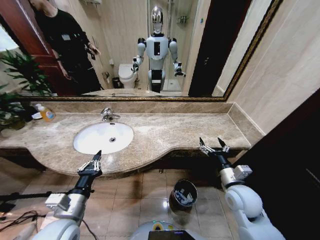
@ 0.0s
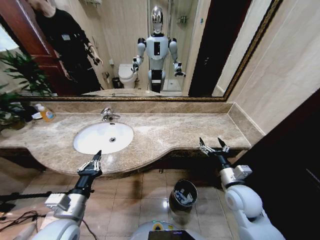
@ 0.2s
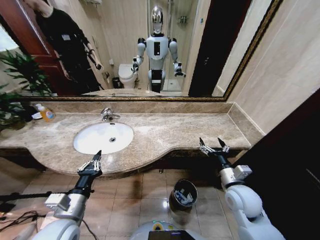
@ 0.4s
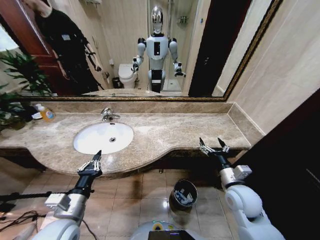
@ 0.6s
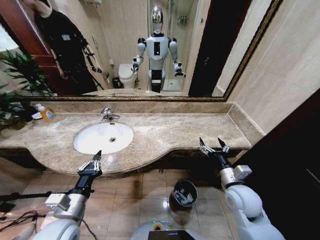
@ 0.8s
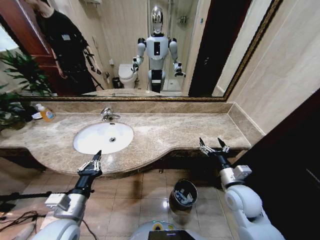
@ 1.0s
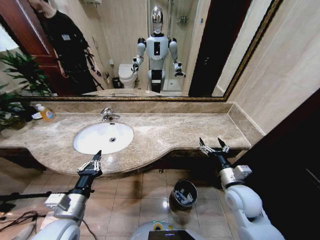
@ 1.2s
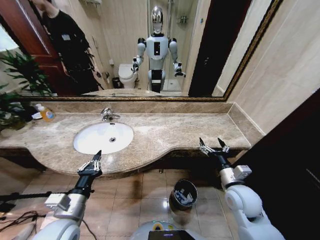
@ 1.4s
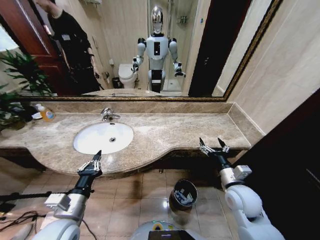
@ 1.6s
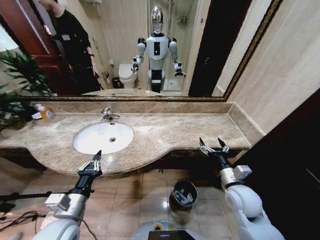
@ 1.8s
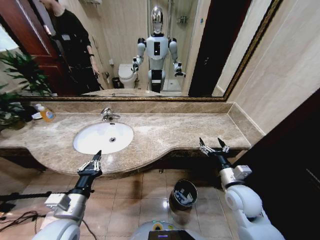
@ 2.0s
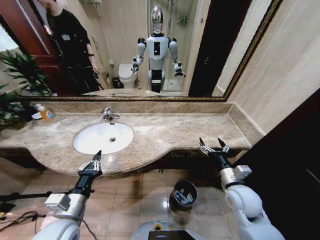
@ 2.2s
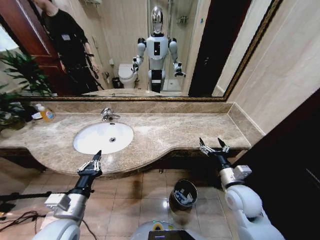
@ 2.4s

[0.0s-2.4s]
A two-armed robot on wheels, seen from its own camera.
Task of the whole recording: Pick up the trash from the sink and place it in the trash bin.
0.0s to 2.4s: The two grippers keep their place.

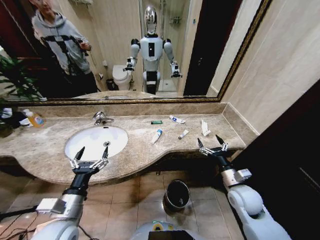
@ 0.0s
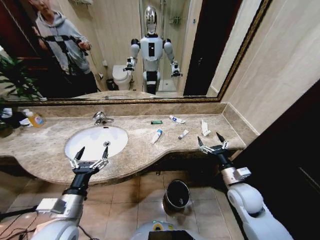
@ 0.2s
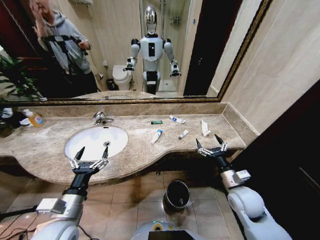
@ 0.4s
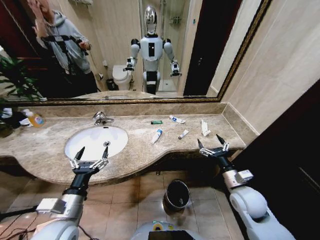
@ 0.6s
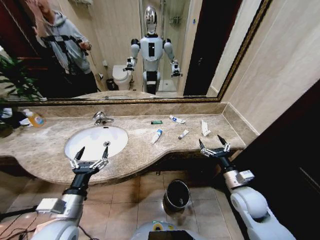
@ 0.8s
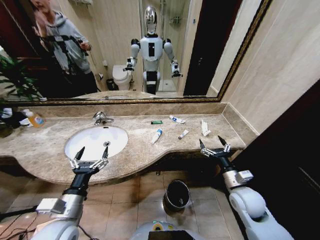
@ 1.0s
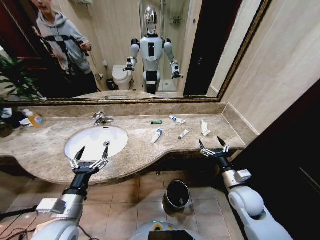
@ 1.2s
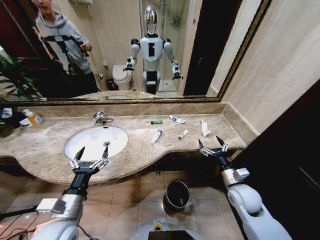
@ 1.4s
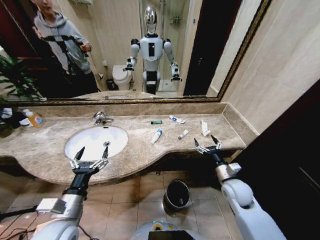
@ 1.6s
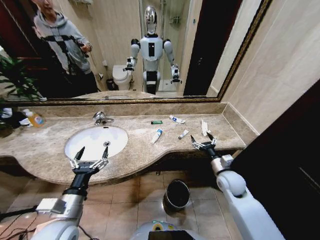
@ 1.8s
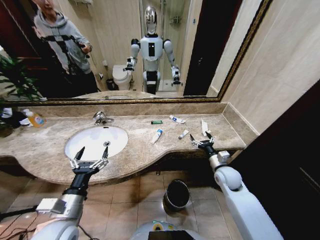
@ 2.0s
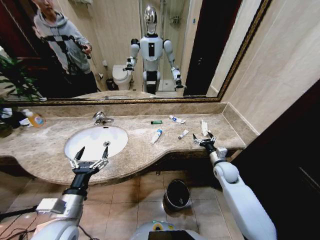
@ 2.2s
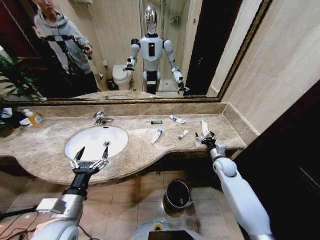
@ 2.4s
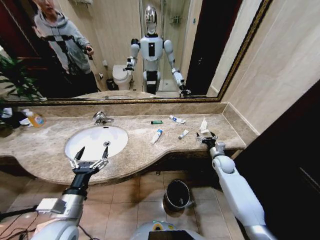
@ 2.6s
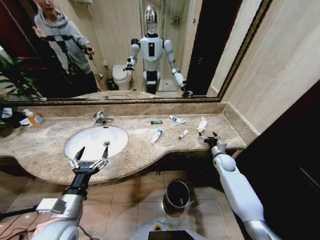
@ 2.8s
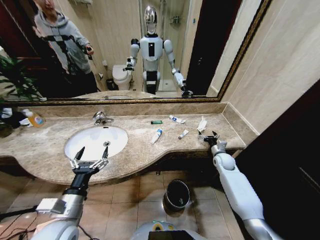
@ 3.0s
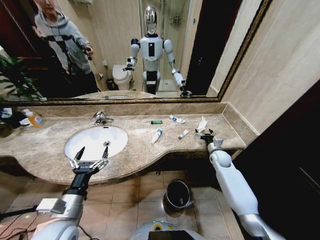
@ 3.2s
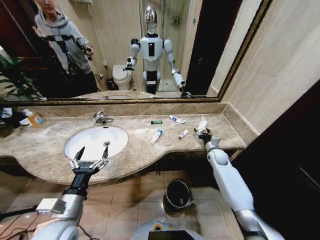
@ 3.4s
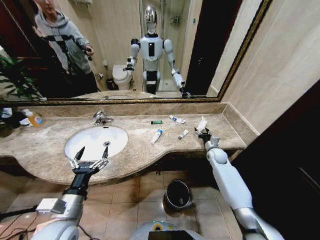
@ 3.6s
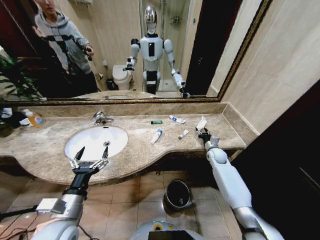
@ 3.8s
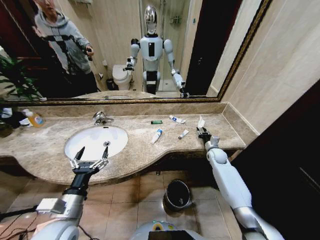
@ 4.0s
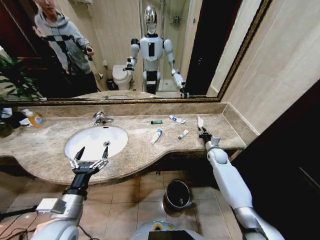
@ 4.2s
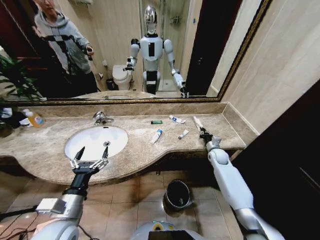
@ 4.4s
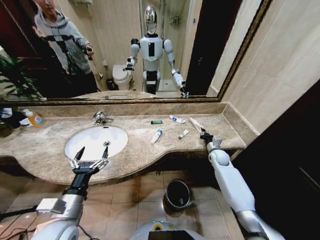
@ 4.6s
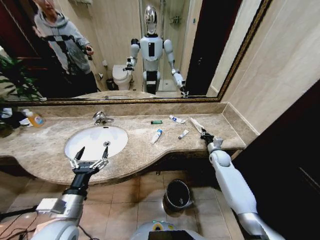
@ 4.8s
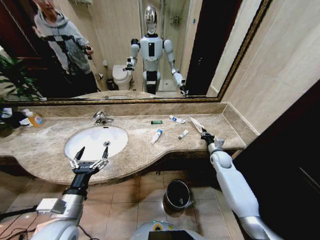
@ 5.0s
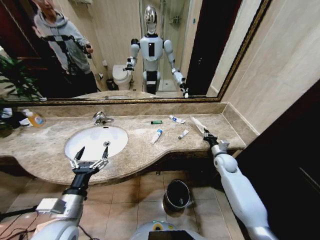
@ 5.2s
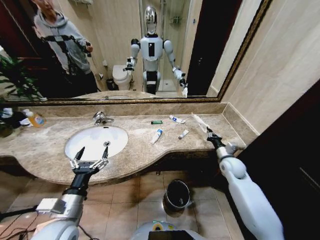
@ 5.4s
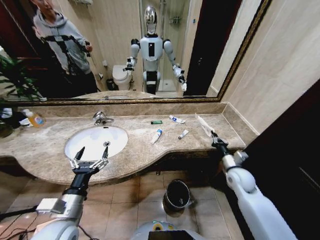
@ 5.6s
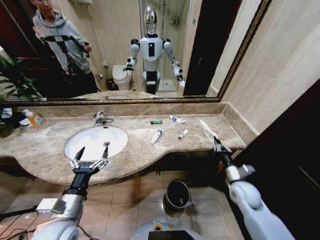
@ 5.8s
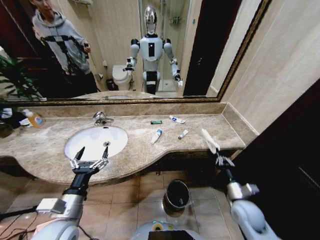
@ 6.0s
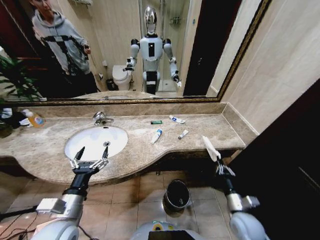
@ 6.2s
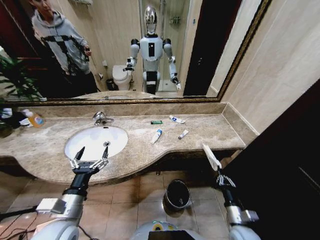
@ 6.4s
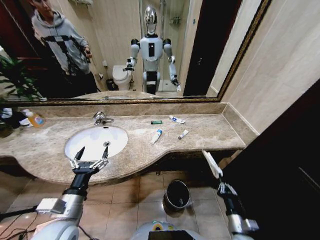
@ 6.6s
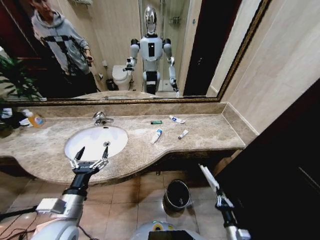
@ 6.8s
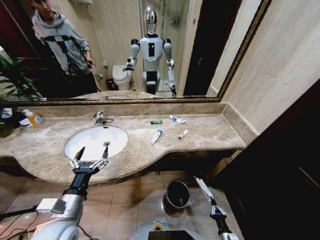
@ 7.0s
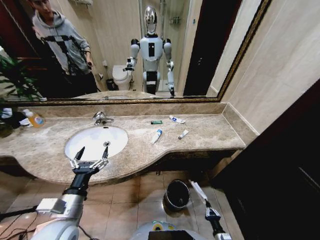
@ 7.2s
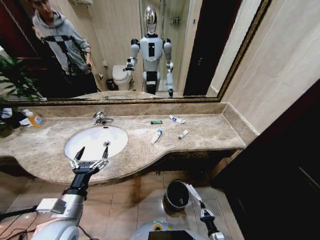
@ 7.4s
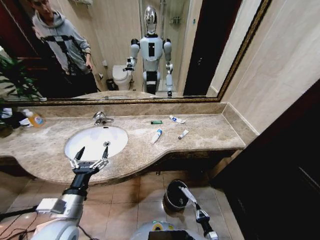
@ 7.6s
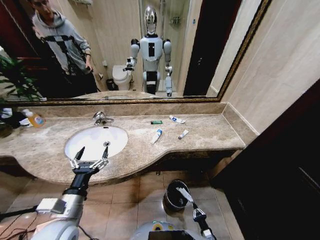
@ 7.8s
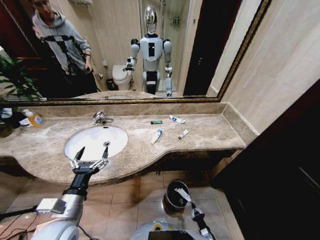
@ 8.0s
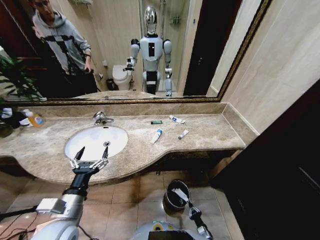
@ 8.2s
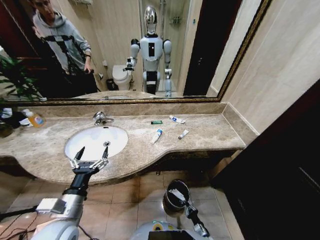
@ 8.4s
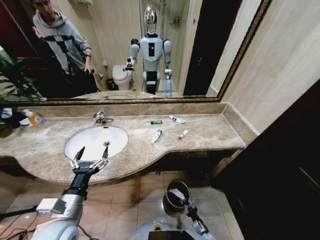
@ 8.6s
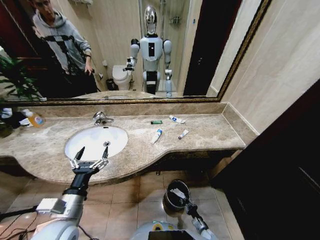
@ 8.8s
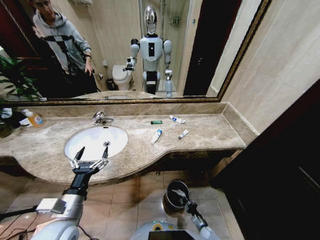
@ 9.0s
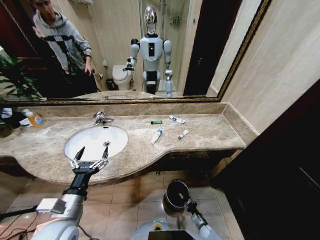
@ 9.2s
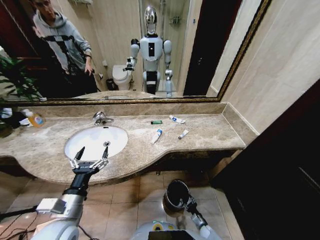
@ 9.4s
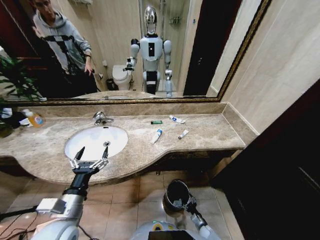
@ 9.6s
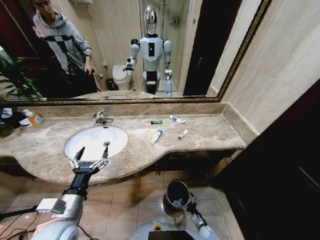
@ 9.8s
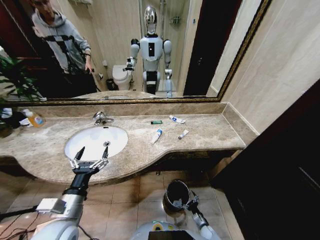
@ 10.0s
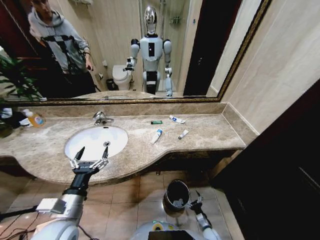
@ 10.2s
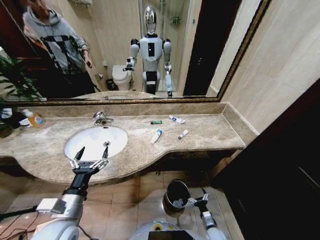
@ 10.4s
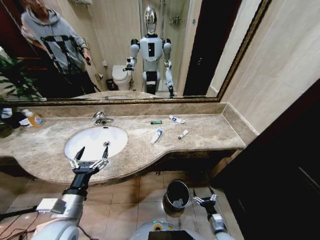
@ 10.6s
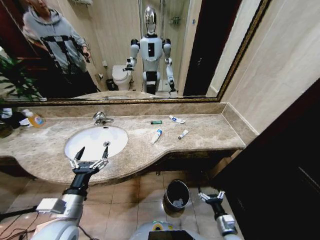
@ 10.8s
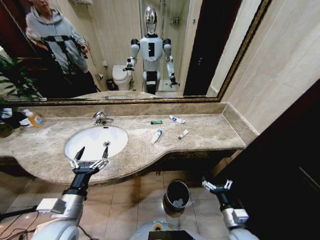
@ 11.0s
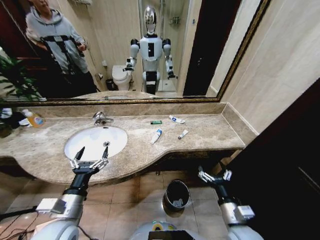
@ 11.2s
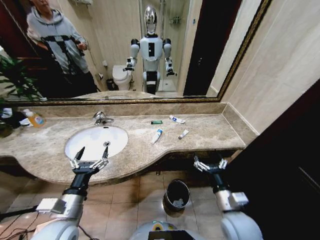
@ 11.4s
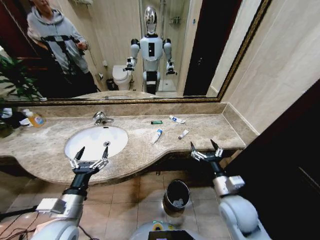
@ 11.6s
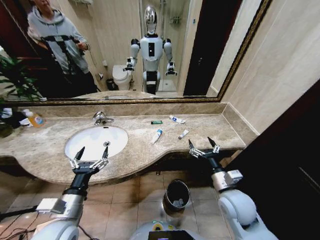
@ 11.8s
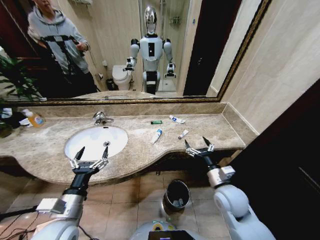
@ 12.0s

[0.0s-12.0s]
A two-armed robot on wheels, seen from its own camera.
Task of the whole recording: Pick up the trash from the sink and place it in the trash bin.
1.6s to 3.0s: The right gripper is displaced forward by approximately 15 cm.
3.0s to 4.4s: The right gripper closes.
4.4s to 6.0s: The right gripper shifts some 25 cm backward.
6.0s to 7.6s: The right gripper travels downward and backward by approximately 35 cm.
7.6s to 9.0s: The right gripper goes roughly 10 cm forward and downward.
9.0s to 10.4s: The right gripper moves upward, about 10 cm, and opens its fingers.
10.4s to 12.0s: The right gripper travels upward by about 35 cm.

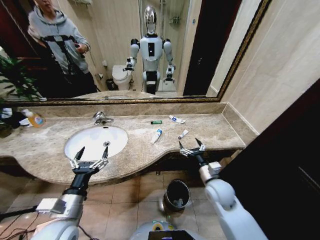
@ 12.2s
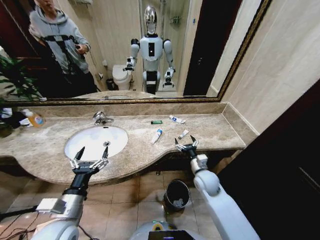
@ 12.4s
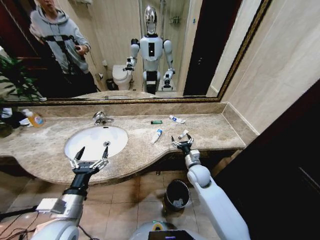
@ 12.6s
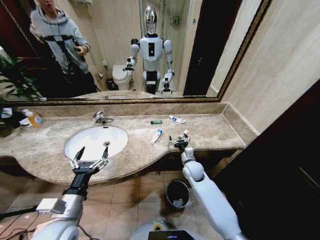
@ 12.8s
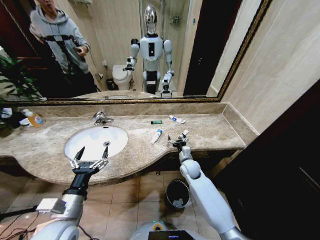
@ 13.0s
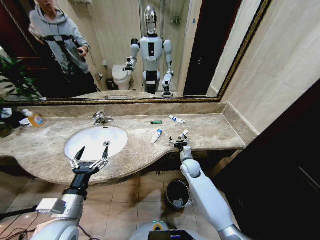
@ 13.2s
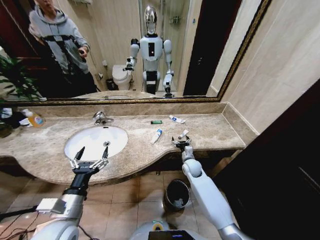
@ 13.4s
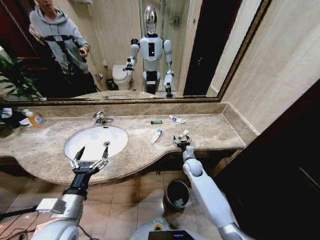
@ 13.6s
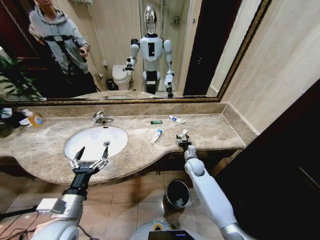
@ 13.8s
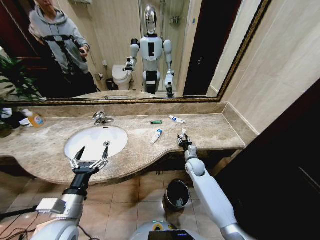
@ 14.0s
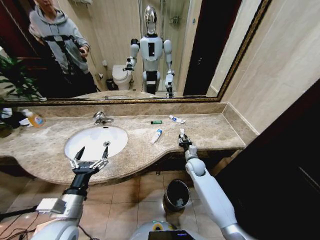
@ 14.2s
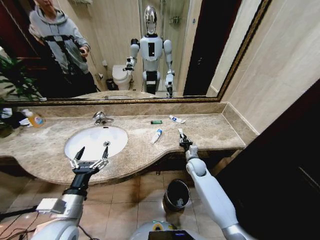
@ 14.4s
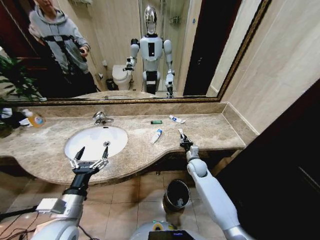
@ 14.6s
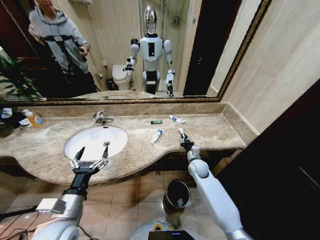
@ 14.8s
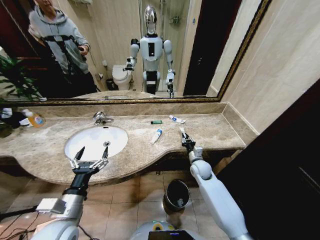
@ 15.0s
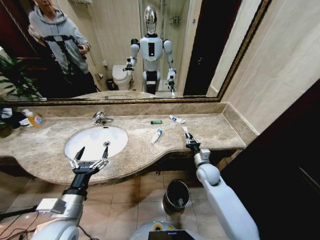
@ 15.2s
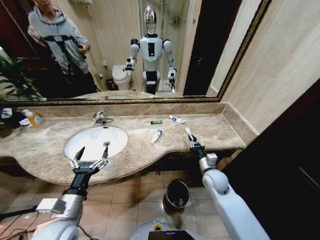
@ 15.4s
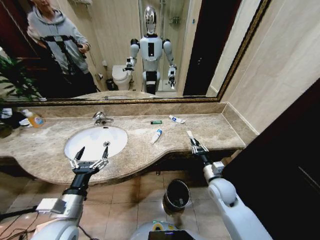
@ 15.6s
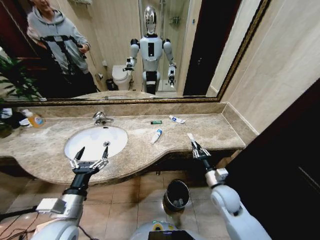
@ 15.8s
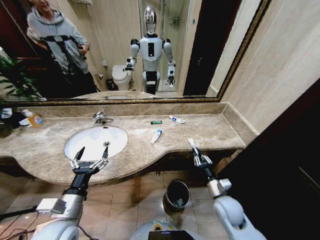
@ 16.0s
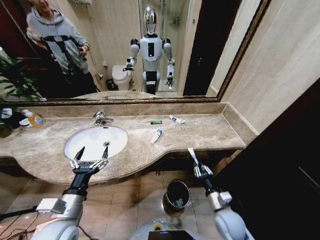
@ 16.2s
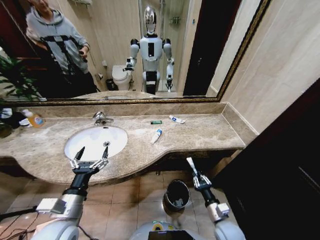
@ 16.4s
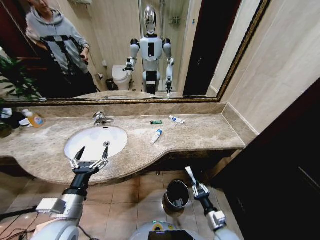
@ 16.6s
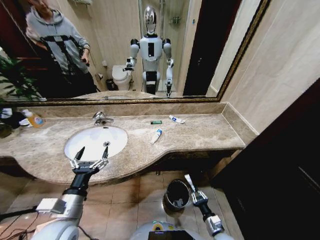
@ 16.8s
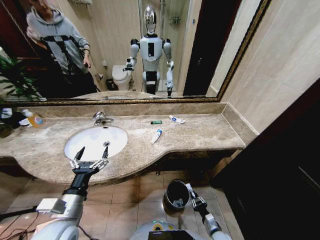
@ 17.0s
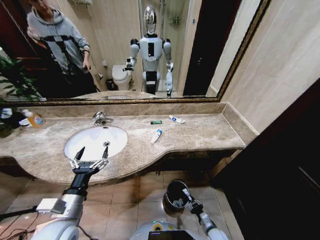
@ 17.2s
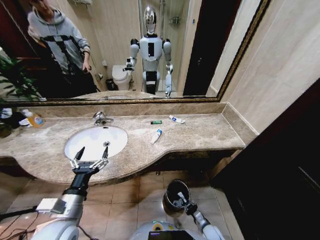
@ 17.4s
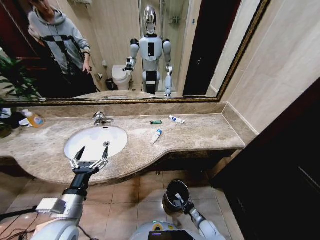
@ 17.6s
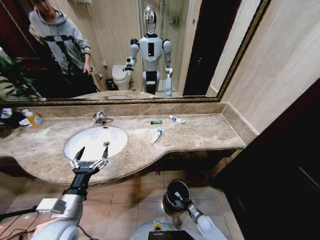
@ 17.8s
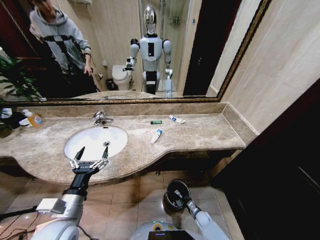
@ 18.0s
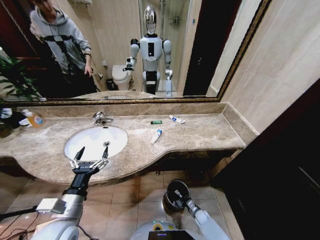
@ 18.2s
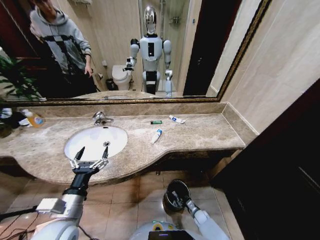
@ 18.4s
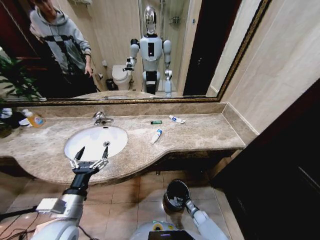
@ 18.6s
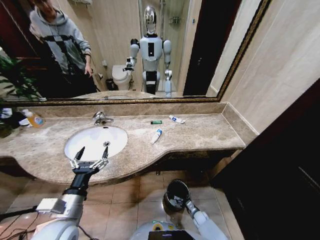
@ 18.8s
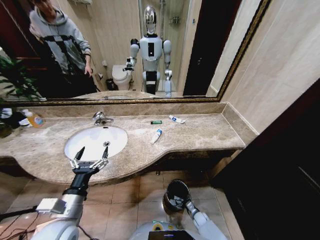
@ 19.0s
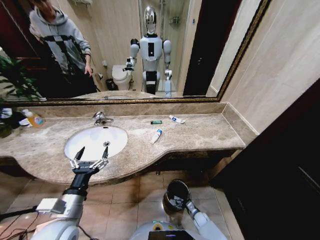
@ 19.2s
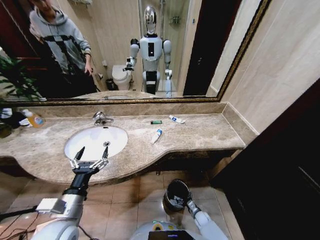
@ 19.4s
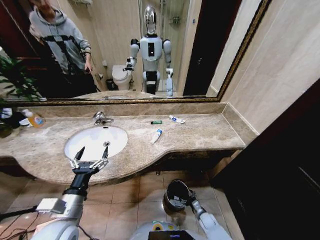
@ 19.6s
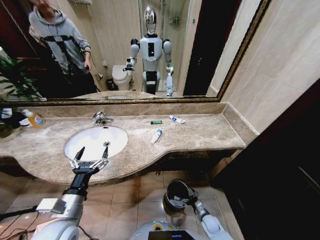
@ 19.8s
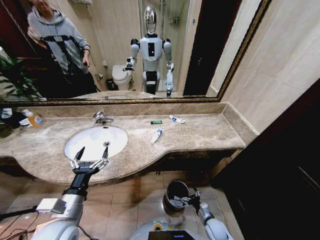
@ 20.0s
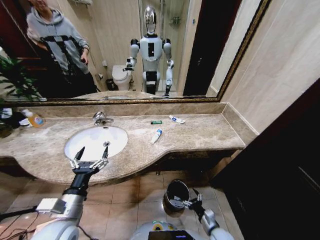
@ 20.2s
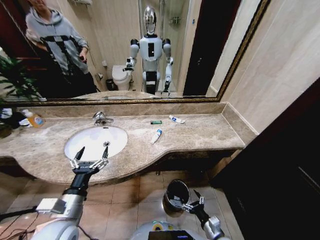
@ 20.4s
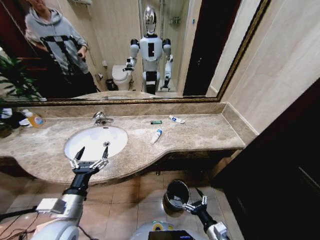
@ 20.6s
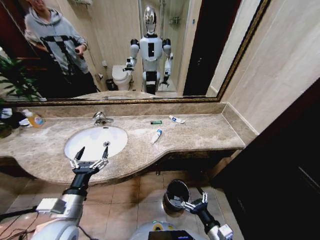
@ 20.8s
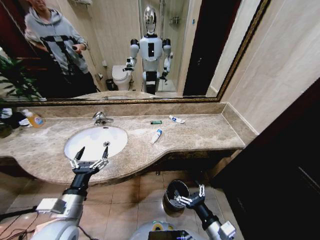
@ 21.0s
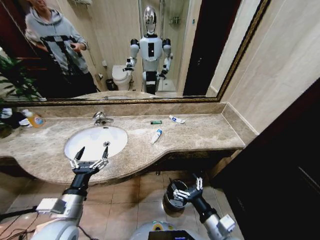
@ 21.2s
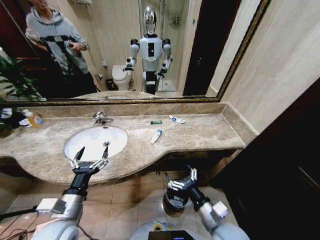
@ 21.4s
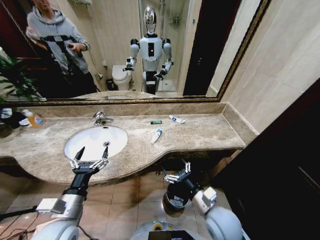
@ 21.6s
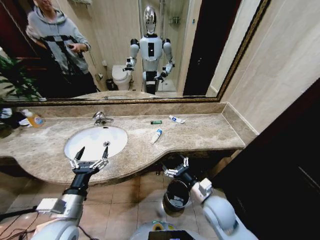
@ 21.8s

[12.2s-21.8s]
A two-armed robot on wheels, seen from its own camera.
Task of the whole recording: Pick up the trash from the sink and place it in the trash bin.
12.2s to 13.8s: The right gripper shifts roughly 15 cm forward and downward.
13.8s to 15.4s: The right gripper shifts some 10 cm backward, to the right and upward, and closes its fingers.
15.4s to 17.0s: The right gripper goes roughly 30 cm downward and backward.
17.0s to 18.6s: The right gripper moves downward and forward, some 15 cm, and opens up.
18.6s to 20.2s: The right gripper is displaced upward and backward by some 20 cm, and opens up.
20.2s to 21.8s: The right gripper heads upward, covering roughly 20 cm.
